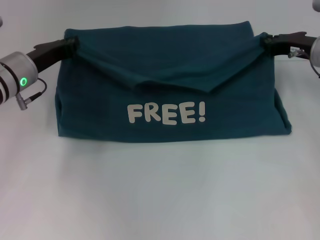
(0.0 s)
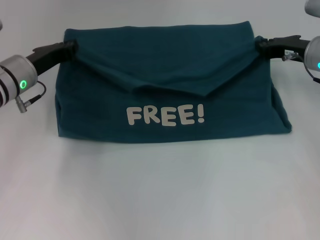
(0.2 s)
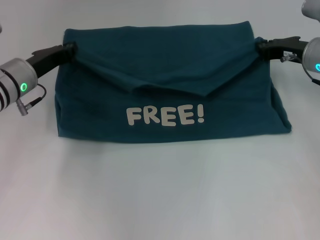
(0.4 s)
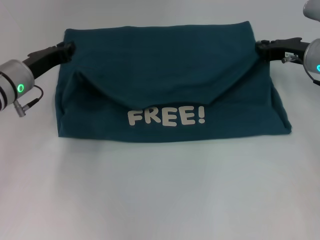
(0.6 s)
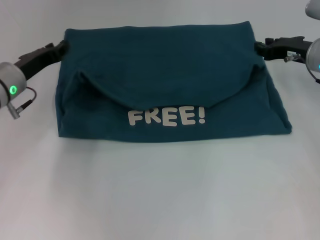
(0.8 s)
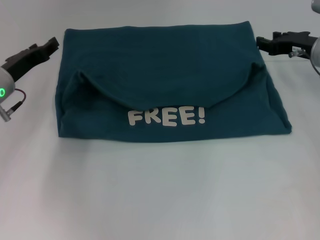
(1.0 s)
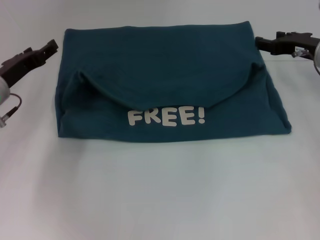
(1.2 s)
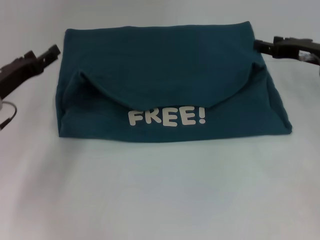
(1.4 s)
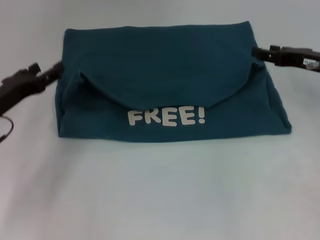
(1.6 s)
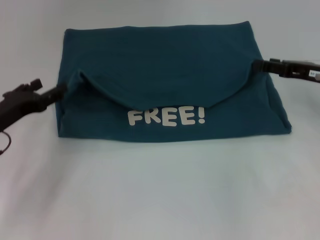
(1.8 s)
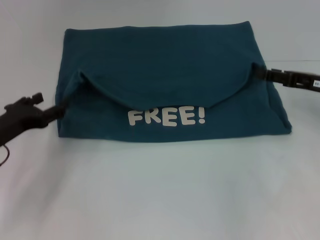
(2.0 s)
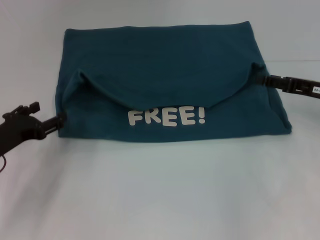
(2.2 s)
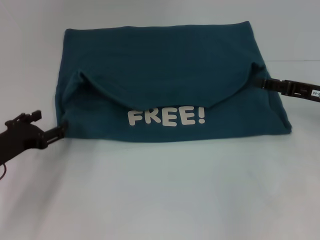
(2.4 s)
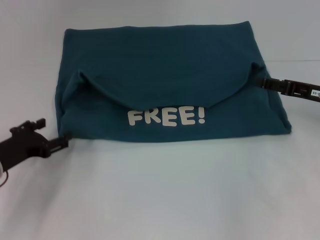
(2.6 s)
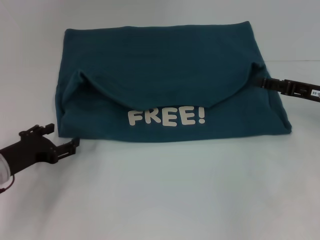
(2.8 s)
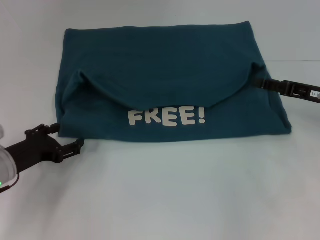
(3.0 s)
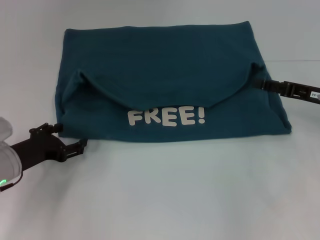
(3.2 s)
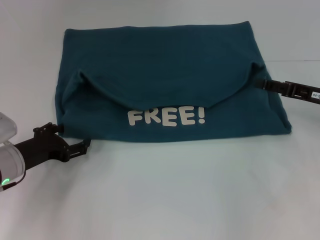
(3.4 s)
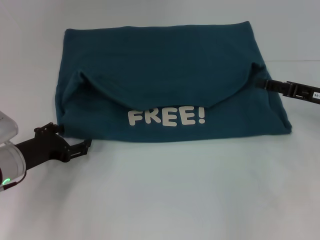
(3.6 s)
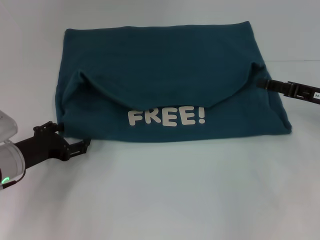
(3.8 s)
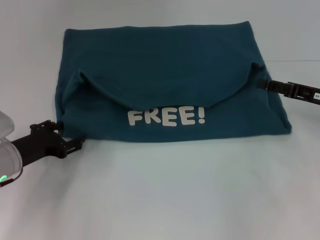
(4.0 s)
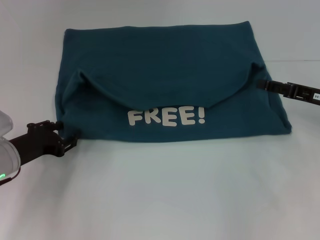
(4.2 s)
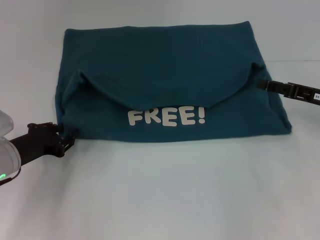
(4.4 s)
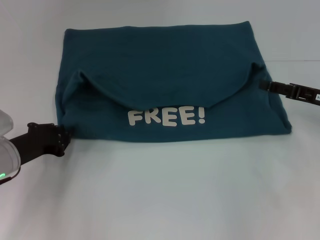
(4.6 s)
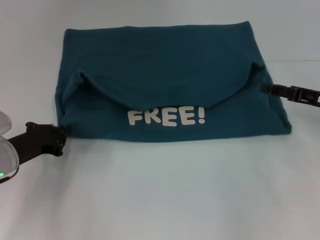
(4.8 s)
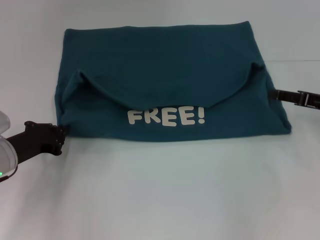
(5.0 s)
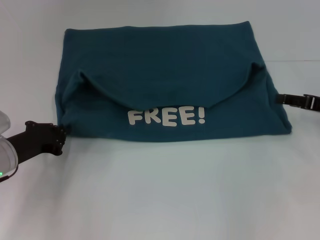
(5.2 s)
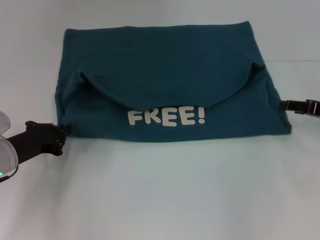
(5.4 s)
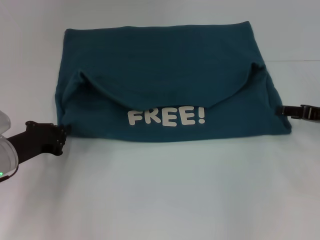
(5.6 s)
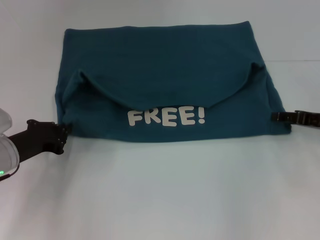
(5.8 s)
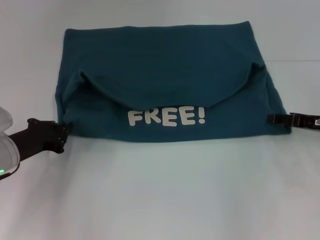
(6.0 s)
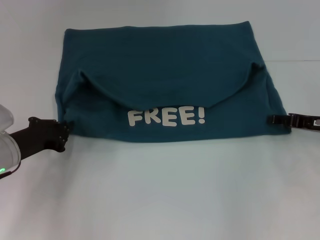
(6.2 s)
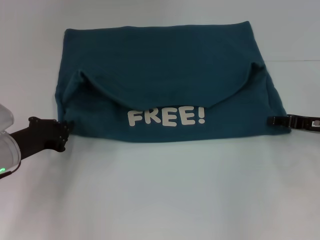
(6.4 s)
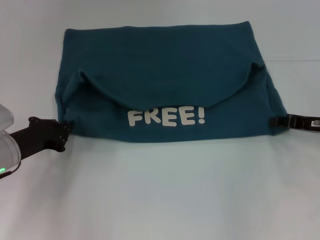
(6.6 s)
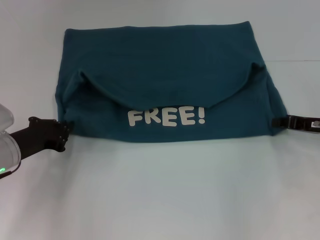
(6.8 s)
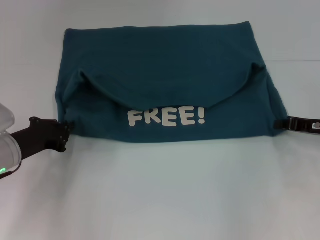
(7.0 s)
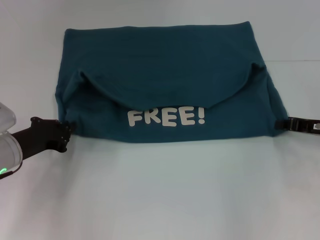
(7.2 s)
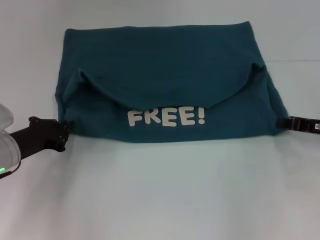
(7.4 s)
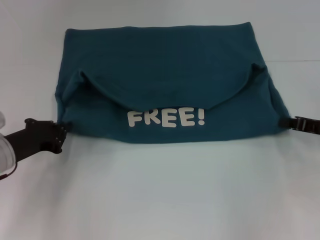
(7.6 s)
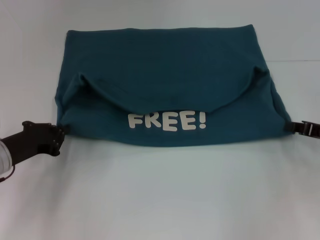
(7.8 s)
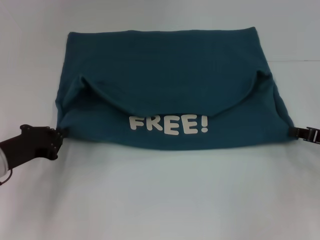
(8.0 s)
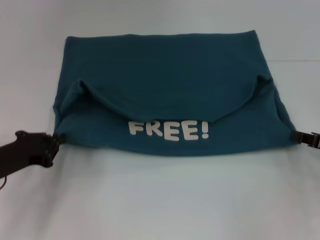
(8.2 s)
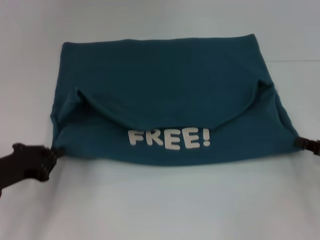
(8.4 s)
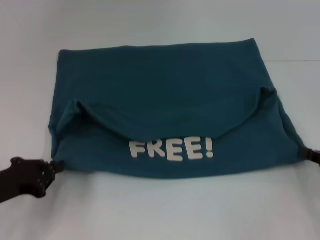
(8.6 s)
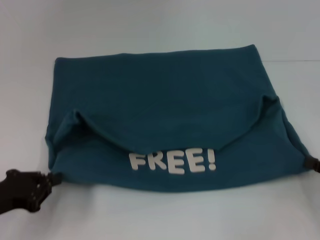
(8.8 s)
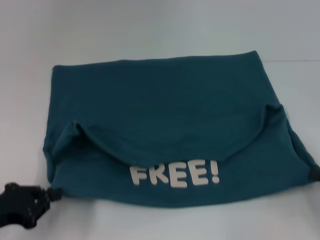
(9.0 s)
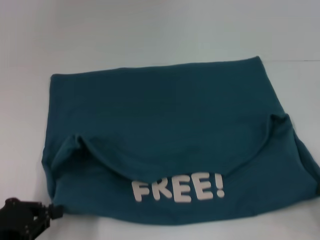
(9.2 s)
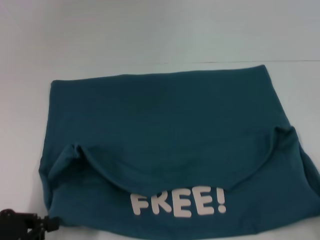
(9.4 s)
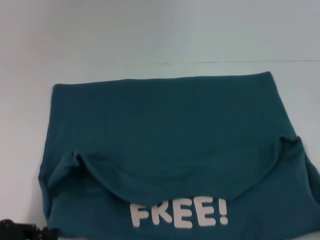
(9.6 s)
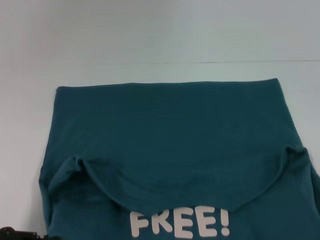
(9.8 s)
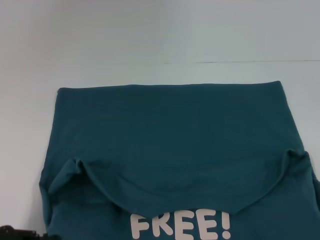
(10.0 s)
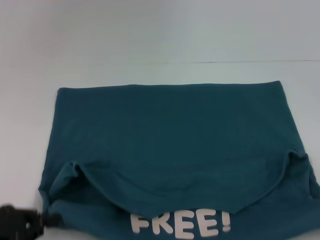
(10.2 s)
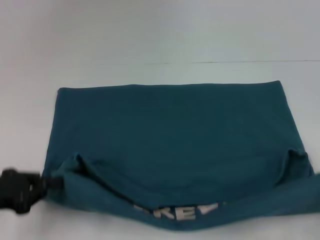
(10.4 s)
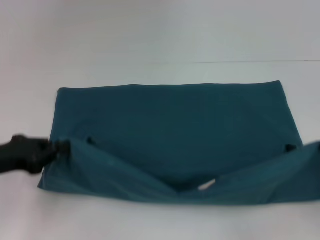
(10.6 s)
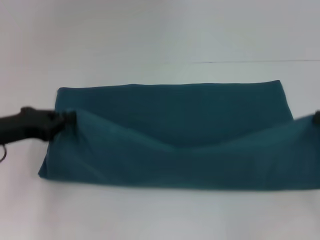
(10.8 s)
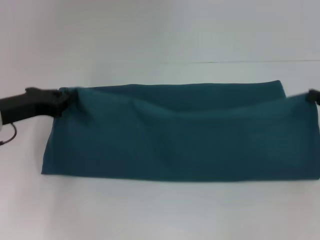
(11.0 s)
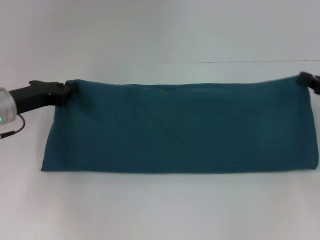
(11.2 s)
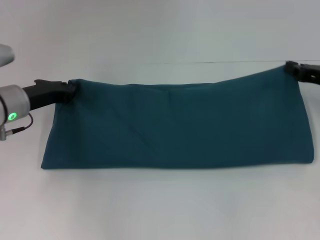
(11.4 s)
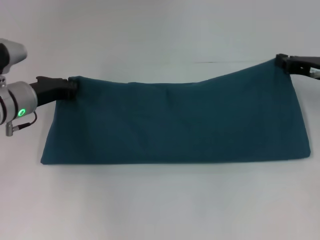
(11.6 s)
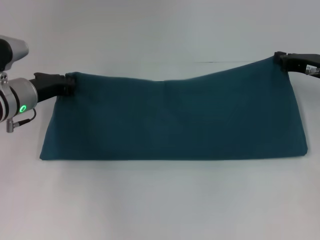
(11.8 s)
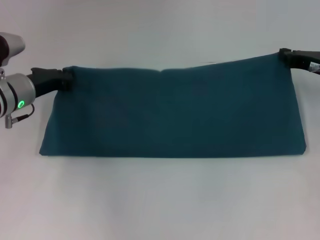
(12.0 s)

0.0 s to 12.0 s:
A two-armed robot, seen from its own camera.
Step, 1.4 to 9.6 s: Pull the clothes with your left hand.
Step, 1.4 to 9.6 s: Pull the clothes with your right hand.
0.0 to 1.6 s: The left gripper goes some 10 cm backward and to the left, and opens up. The right gripper opens its fingers.
1.6 to 3.0 s: The left gripper shifts approximately 5 cm downward. Meanwhile the right gripper shifts by about 5 cm.
3.0 to 4.4 s: Both grippers stay about where they are.
4.4 to 6.0 s: The left gripper closes its fingers.
6.0 to 7.6 s: The right gripper closes up.
7.6 to 9.0 s: Both grippers travel together backward, some 10 cm.
9.0 to 10.4 s: The right gripper moves about 10 cm backward and comes back.
10.4 to 12.0 s: The left gripper shifts some 20 cm forward, while the right gripper heads forward and to the left, covering about 25 cm.

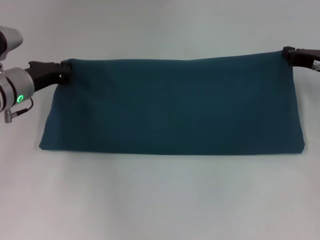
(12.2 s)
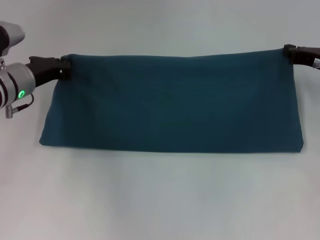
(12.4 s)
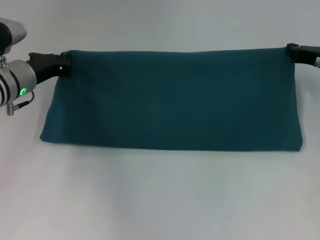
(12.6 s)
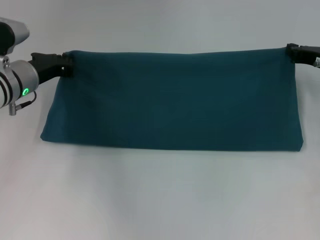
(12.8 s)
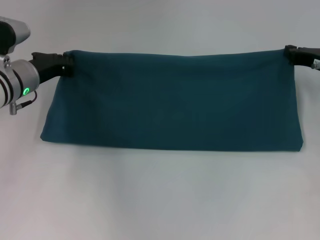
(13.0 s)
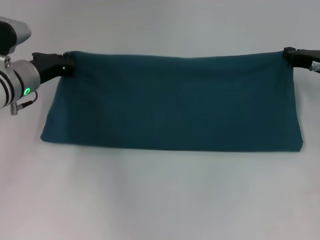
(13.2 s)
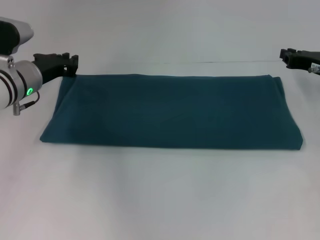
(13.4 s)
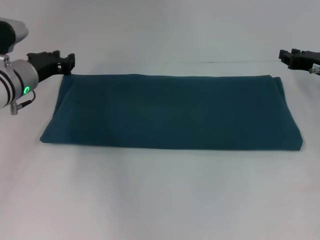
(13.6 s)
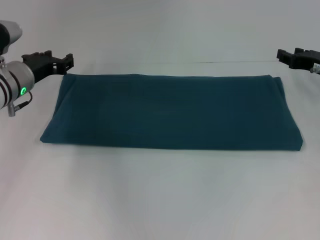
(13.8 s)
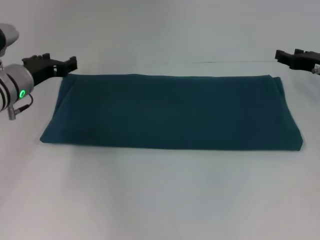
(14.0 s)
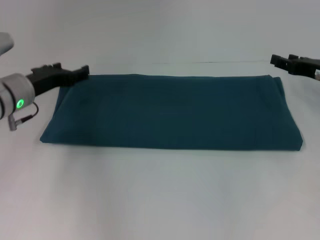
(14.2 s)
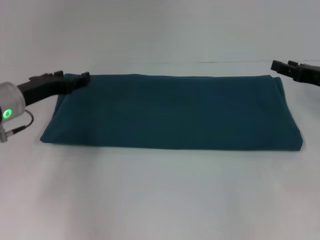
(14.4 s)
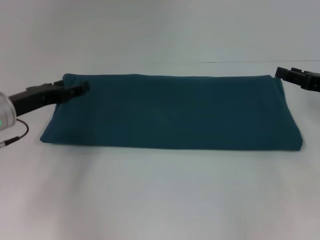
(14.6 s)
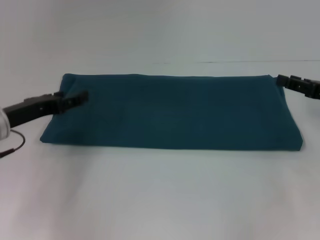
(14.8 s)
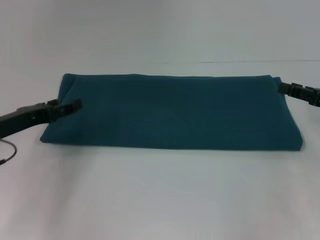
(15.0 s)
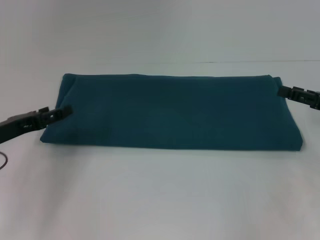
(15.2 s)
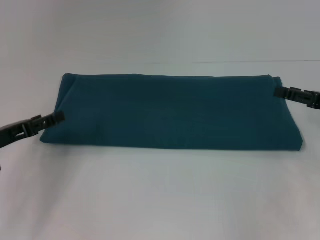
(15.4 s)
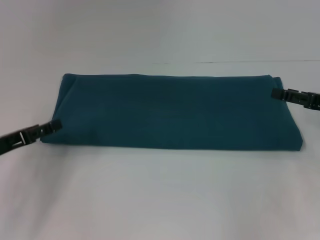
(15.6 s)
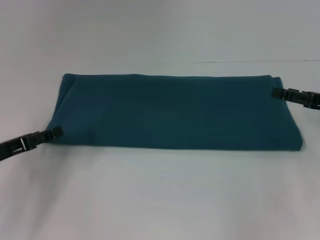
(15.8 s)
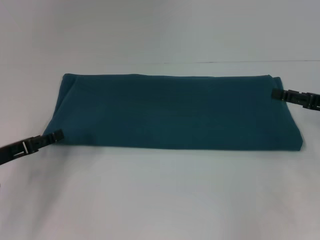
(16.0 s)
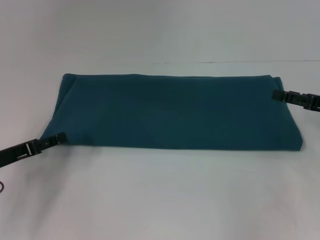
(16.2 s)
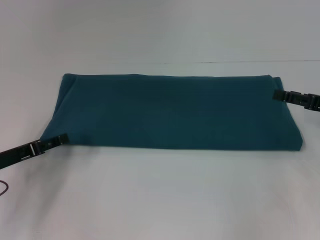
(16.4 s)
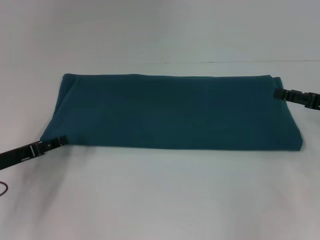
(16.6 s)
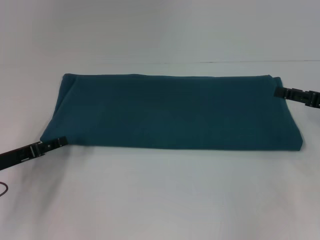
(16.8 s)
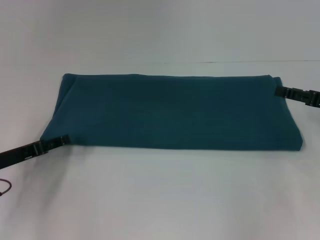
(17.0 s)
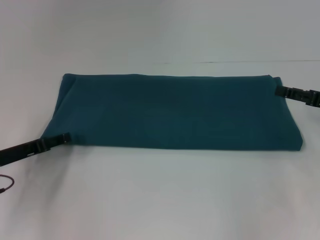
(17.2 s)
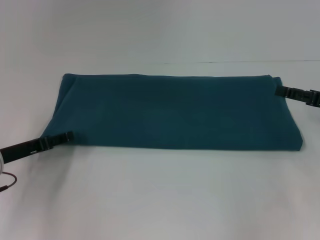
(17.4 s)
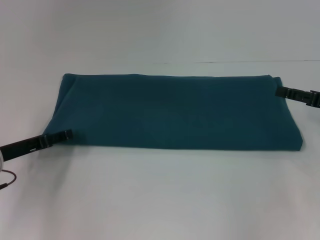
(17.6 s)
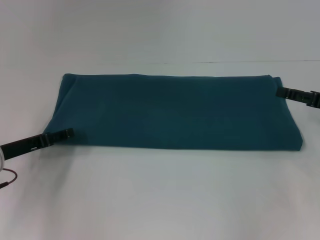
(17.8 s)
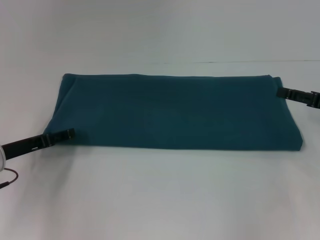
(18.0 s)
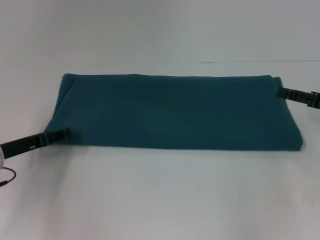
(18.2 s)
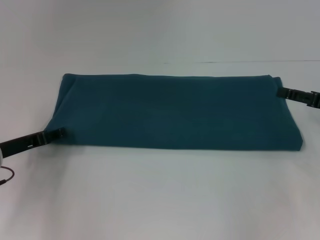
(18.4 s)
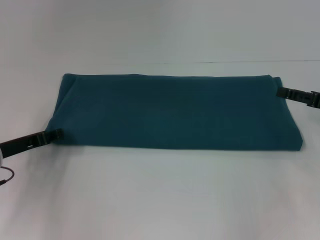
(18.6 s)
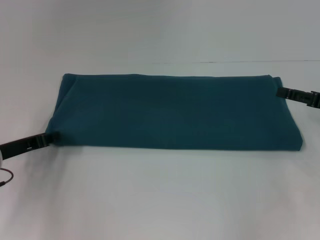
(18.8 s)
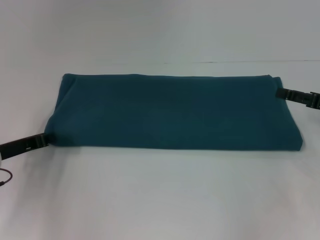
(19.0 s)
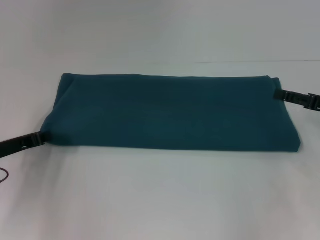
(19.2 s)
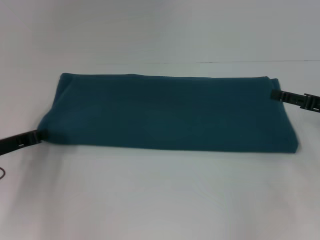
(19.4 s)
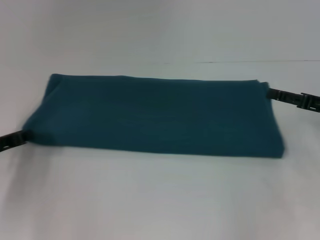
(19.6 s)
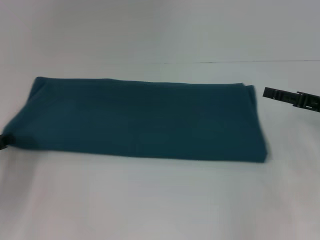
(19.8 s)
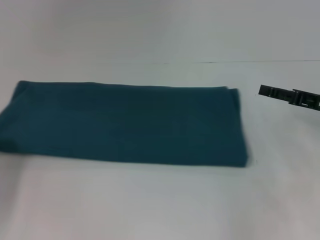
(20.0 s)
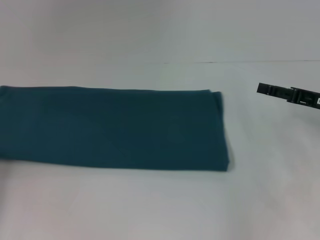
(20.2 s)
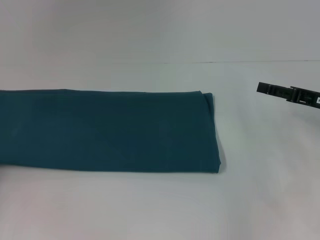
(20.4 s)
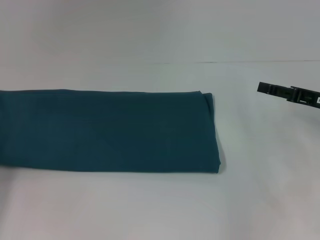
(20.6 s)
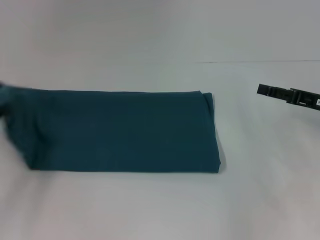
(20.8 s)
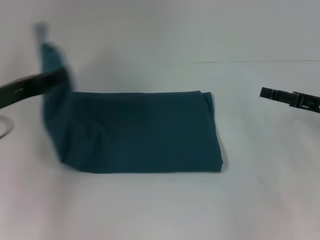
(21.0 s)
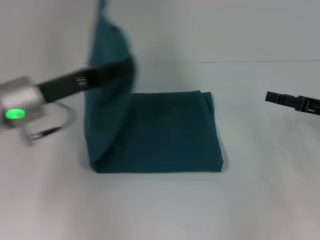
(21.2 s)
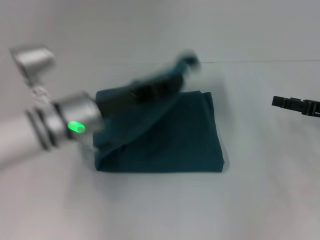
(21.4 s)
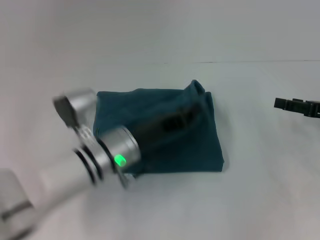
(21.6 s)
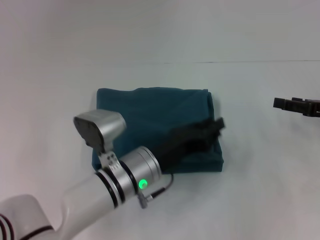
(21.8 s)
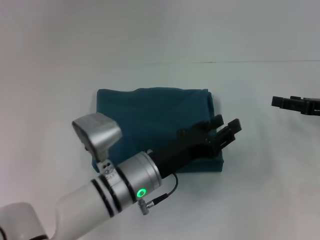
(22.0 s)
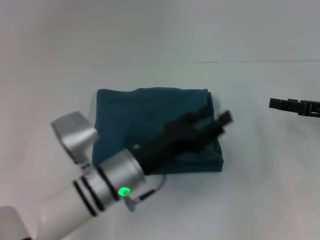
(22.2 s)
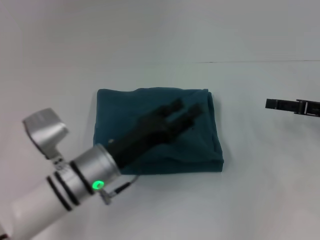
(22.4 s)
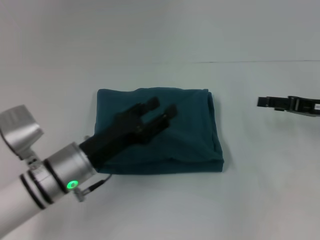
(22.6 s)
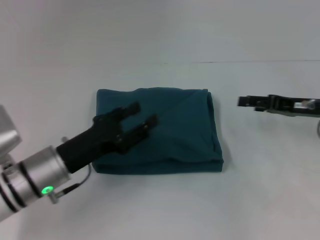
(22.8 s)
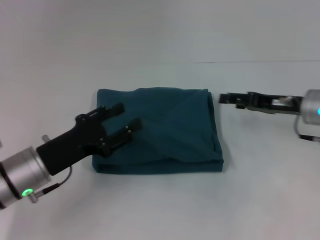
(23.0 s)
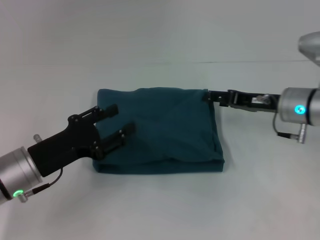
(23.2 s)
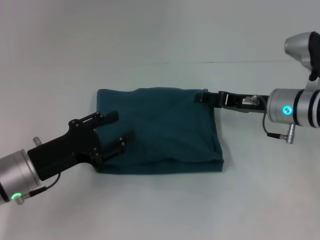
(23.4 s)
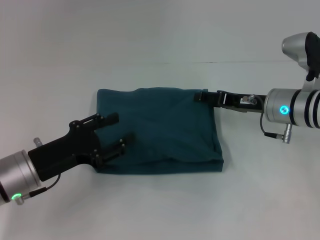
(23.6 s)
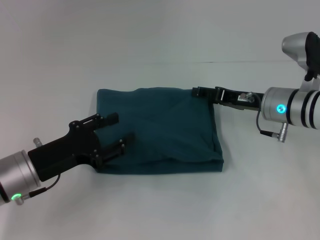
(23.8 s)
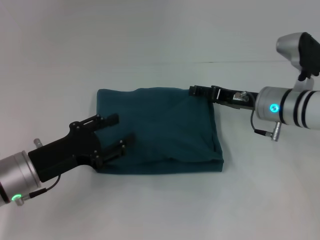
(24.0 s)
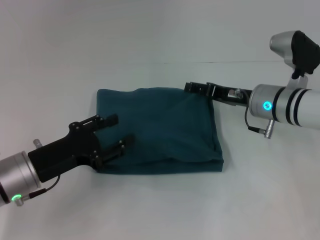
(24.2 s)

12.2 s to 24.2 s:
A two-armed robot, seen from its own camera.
Step, 12.2 to 22.4 s: Fold the clothes to the left.
12.2 to 13.8 s: The left gripper opens up.
13.8 to 15.2 s: The right gripper goes approximately 10 cm backward, and opens up, while the left gripper heads backward and to the left, covering roughly 15 cm, and opens its fingers.
15.2 to 18.2 s: The grippers make only small movements.
18.2 to 19.8 s: The left gripper is displaced to the left by about 5 cm, and closes.
19.8 to 21.2 s: The left gripper heads to the right and upward, covering some 15 cm.
21.2 to 22.6 s: The left gripper heads downward, to the right and backward, covering approximately 10 cm, and opens its fingers.
22.6 to 24.2 s: The right gripper moves to the left, about 15 cm. Meanwhile the left gripper shifts approximately 5 cm to the left.
